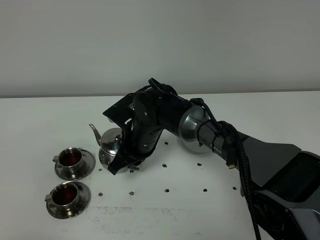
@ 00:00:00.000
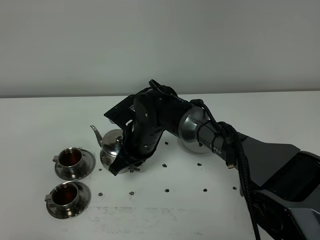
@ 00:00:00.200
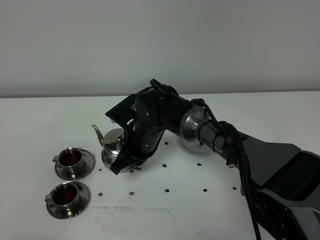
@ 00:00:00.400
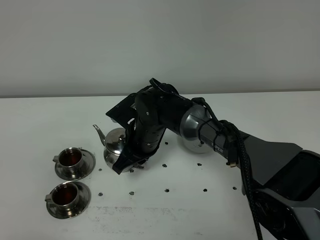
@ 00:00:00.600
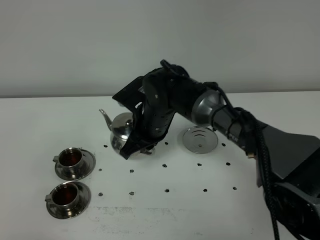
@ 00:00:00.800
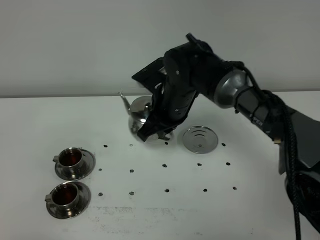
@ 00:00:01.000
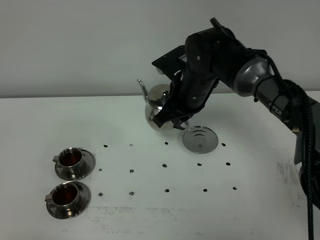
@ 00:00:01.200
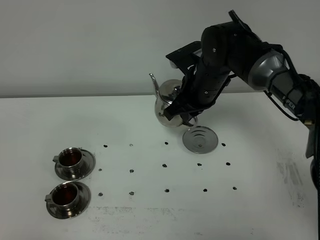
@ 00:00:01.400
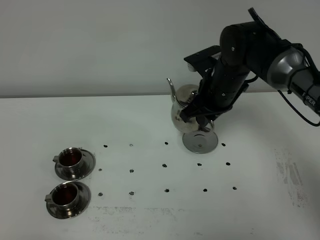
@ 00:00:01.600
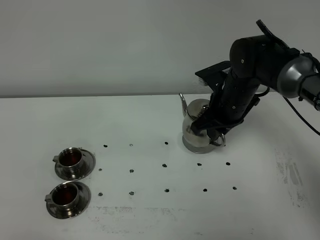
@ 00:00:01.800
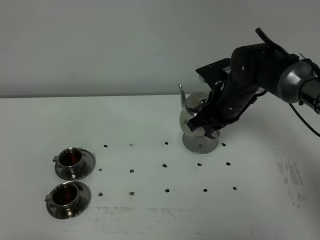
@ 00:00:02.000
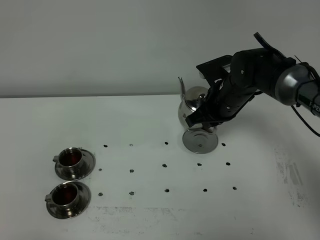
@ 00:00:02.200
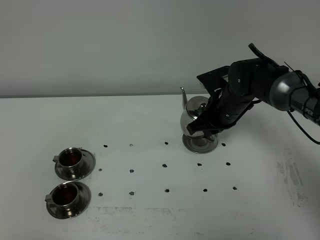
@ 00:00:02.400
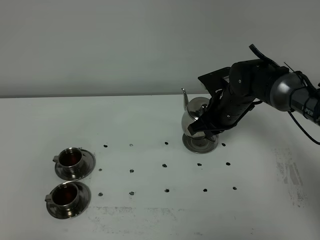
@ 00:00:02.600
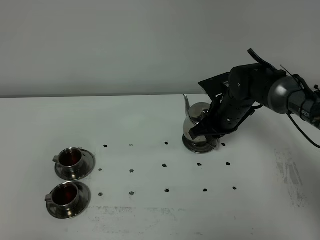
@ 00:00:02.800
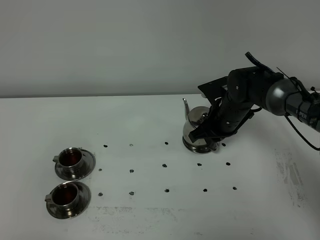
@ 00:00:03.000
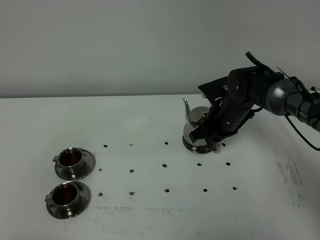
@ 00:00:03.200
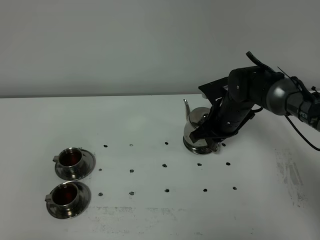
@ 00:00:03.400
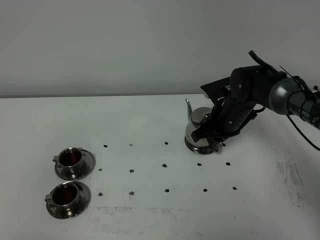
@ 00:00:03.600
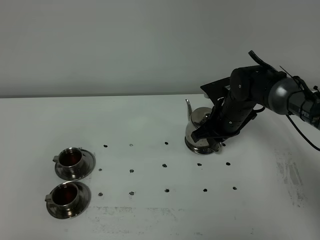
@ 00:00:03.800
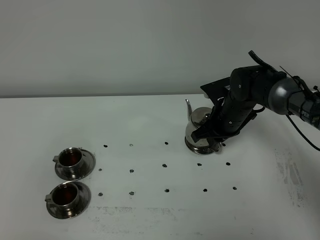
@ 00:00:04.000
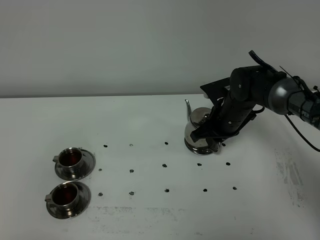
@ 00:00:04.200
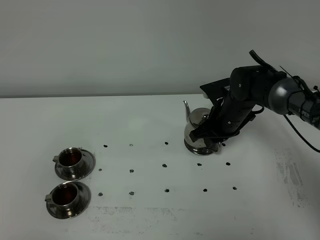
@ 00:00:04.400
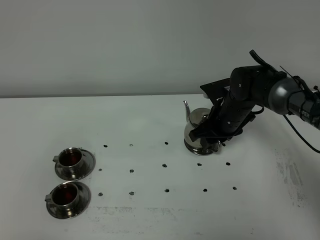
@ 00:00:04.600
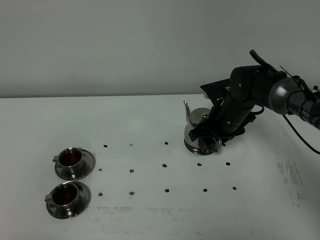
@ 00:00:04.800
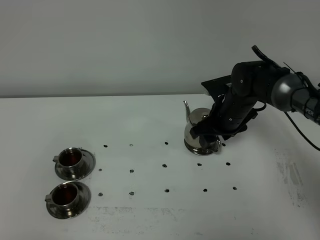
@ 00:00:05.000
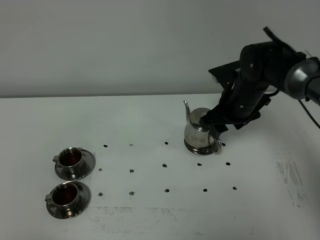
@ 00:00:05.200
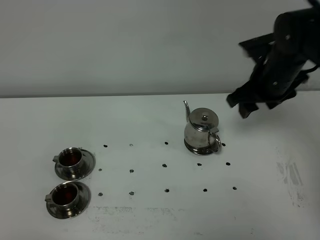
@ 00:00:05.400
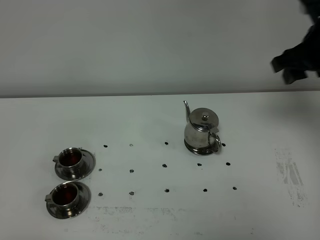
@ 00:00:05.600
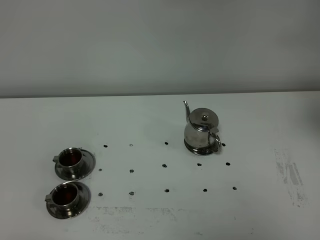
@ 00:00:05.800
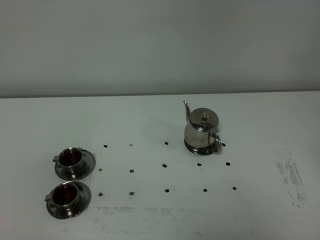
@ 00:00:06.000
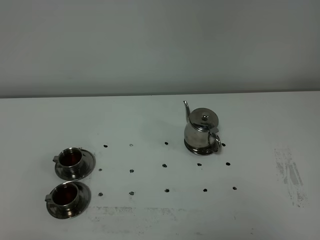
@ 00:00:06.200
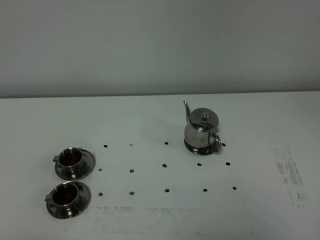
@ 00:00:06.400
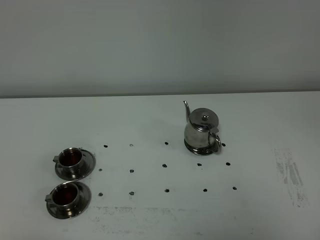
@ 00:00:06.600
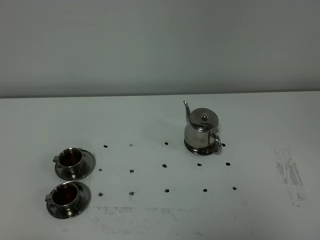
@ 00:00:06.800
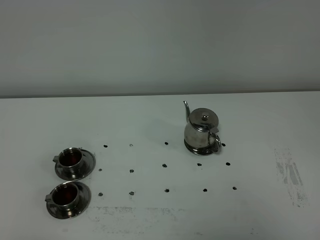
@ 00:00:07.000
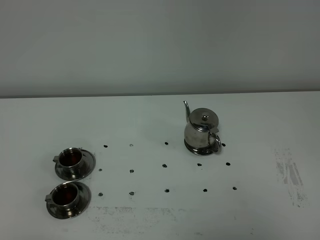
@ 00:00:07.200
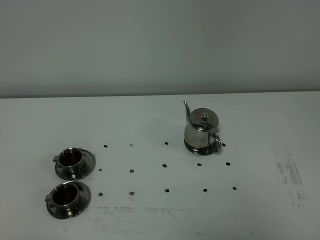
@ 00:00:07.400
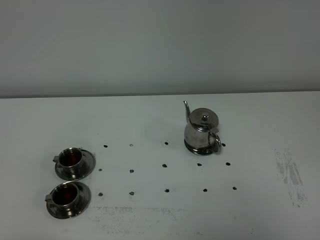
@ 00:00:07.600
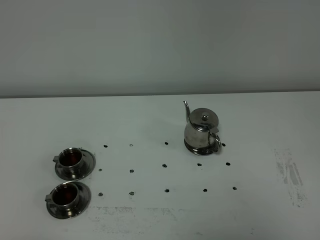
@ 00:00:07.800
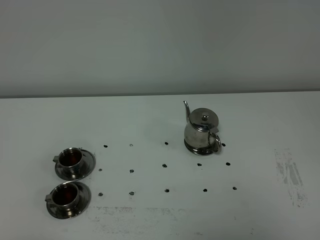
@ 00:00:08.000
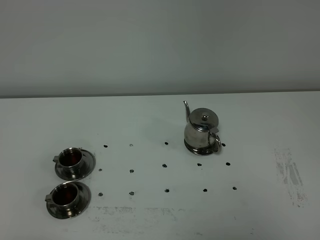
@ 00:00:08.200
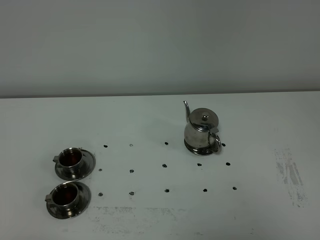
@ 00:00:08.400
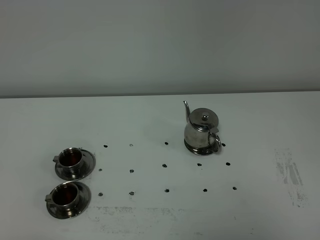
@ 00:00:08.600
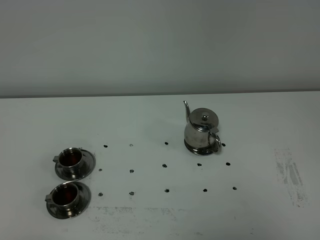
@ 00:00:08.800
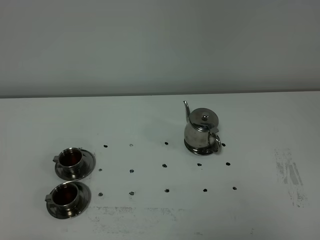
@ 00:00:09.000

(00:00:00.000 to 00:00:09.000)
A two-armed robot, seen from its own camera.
Task of the whole recording: grasp the stainless steel teapot and pour the tea into the two stainless steel teacups one by one, put the stainless steel teapot back in its original place.
00:00:00.000 - 00:00:01.600: The right gripper is displaced to the right and upward by roughly 15 cm.
00:00:01.600 - 00:00:03.000: The right gripper is displaced downward by some 10 cm.
00:00:03.000 - 00:00:04.400: The two grippers keep their place.
00:00:04.400 - 00:00:06.000: The right gripper is displaced upward, backward and to the right by approximately 40 cm, and opens its fingers.
00:00:07.600 - 00:00:09.000: Both grippers stay about where they are.
